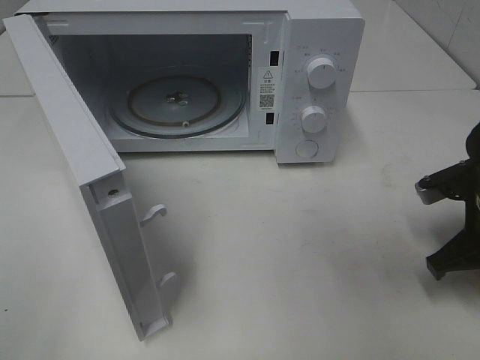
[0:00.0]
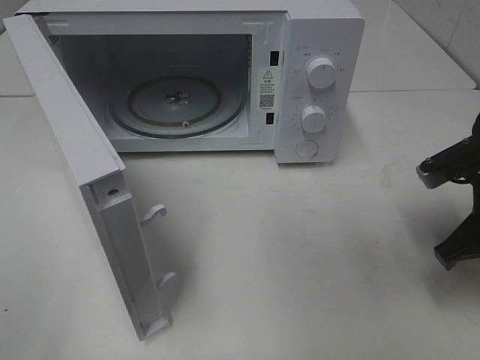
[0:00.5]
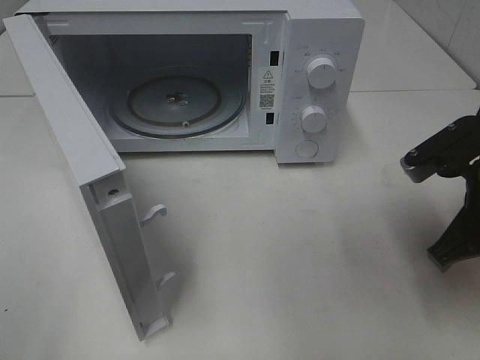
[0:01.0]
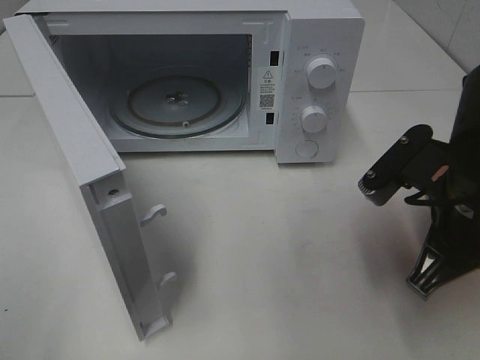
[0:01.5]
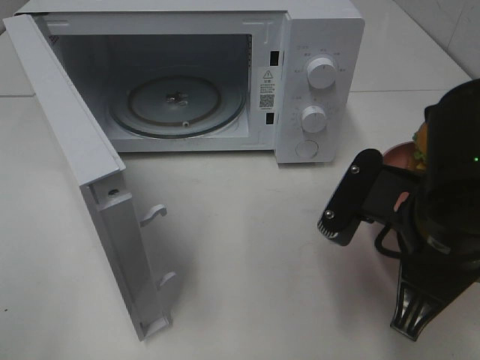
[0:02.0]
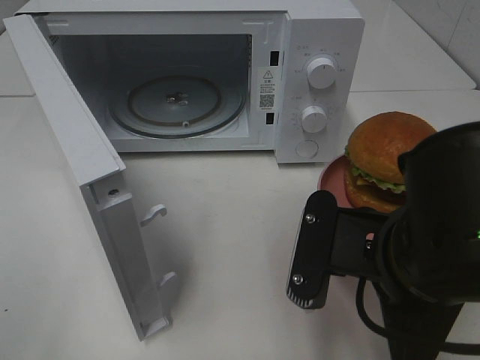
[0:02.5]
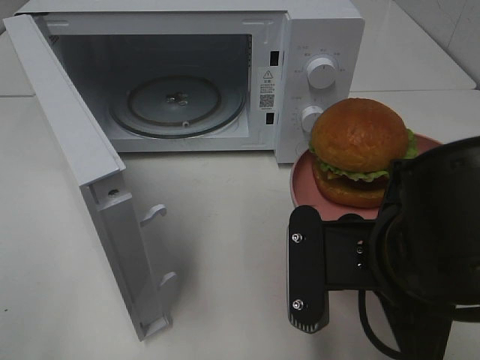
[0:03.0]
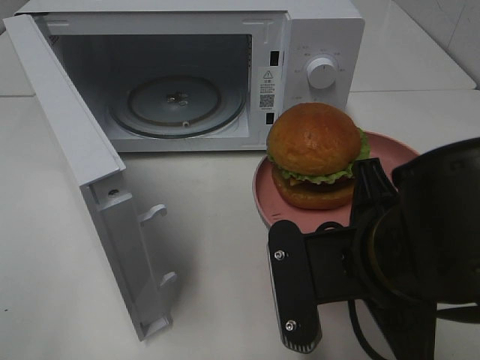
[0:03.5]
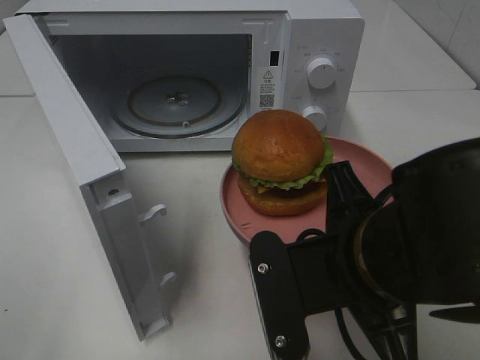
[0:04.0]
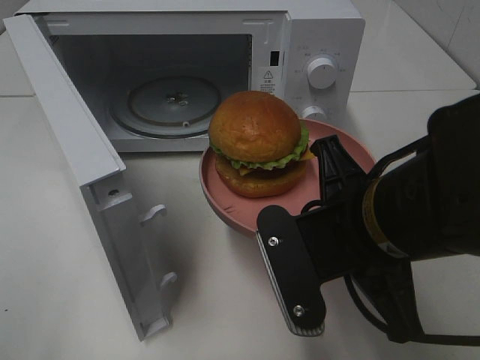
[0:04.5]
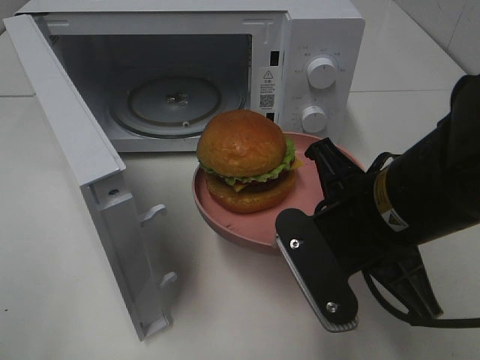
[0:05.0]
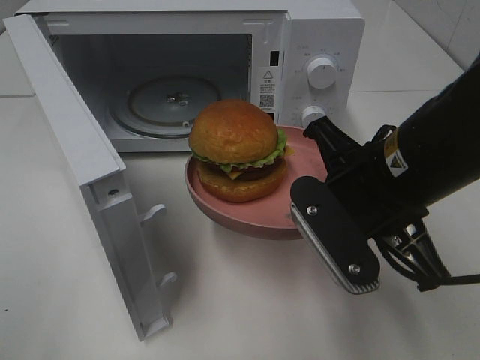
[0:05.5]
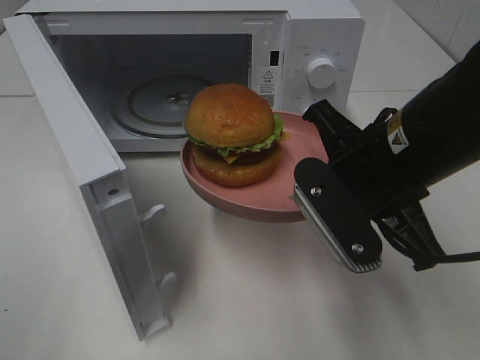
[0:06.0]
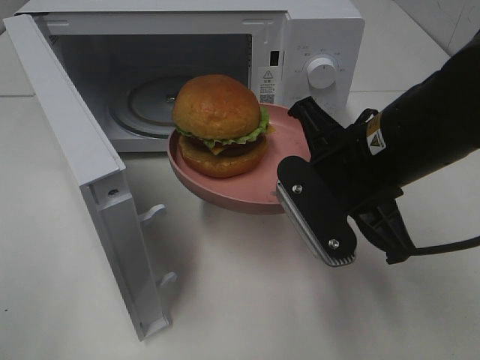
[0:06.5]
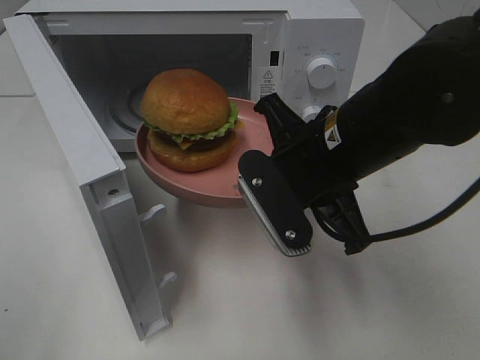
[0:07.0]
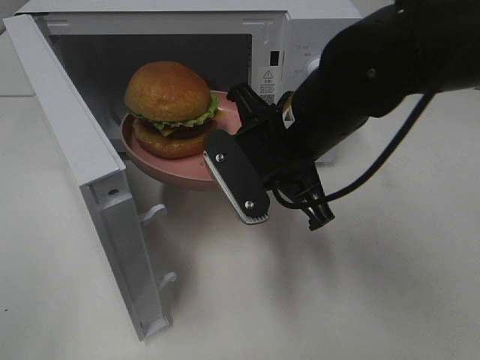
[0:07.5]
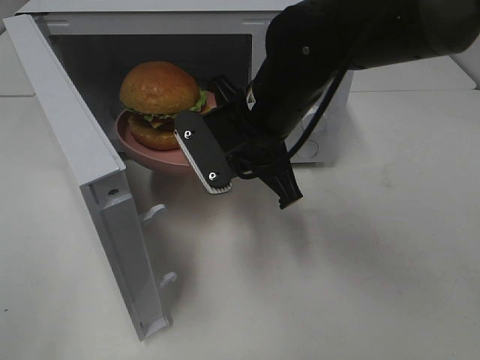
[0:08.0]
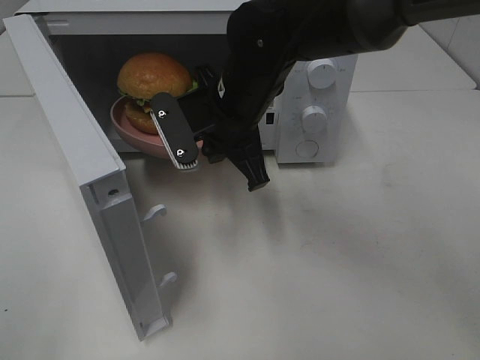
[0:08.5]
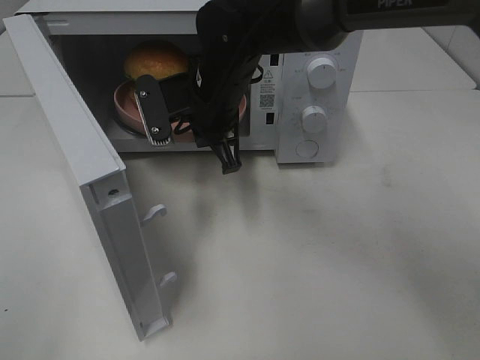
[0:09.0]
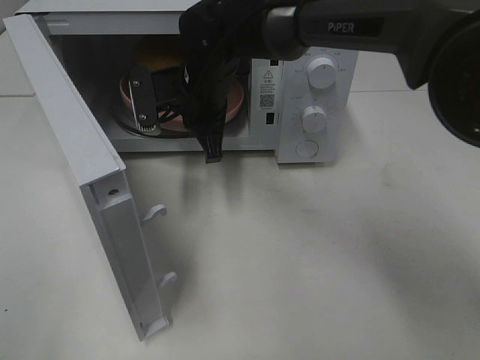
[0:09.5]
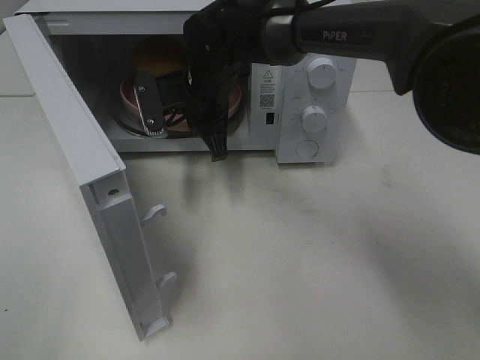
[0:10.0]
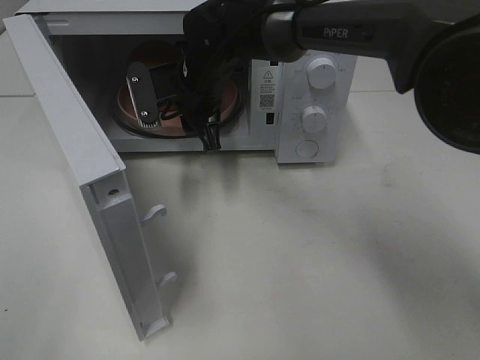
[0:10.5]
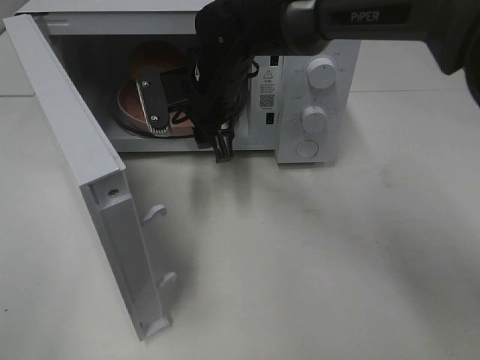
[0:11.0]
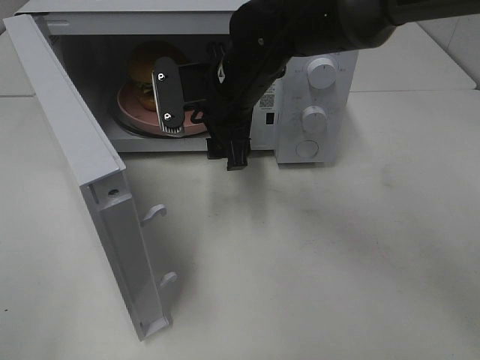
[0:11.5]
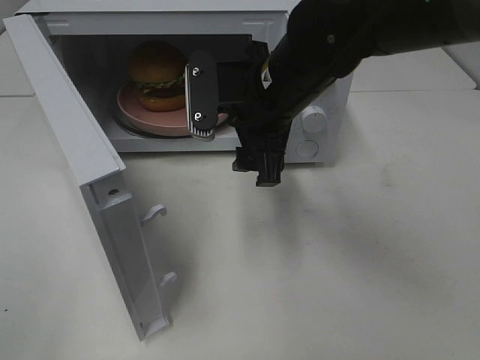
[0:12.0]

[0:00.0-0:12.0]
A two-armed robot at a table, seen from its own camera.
Task of the whole recording: Heat the burger.
Step, 0:00.0 to 0:11.0: Right hand: place the plate in the microwave.
0:00.0 to 0:02.0: The right gripper shifts roughly 15 cm to the left, backward and upward.
0:02.0 to 0:04.0: The right gripper shifts roughly 5 cm to the left.
0:04.0 to 0:06.0: The right gripper goes some 10 cm forward.
0:06.0 to 0:08.0: The right gripper travels to the left and forward by roughly 15 cm.
0:08.0 to 0:10.0: The right gripper shifts approximately 15 cm forward and to the left.
0:10.0 to 0:12.0: The right gripper travels backward, to the right and upward by roughly 15 cm, and opens its fingers.

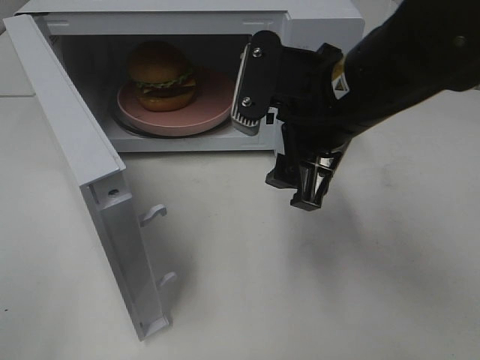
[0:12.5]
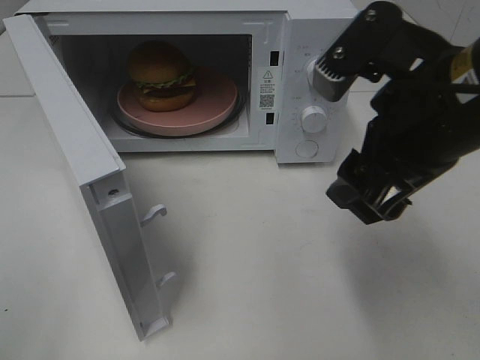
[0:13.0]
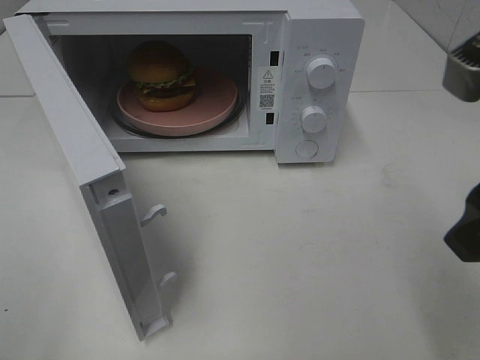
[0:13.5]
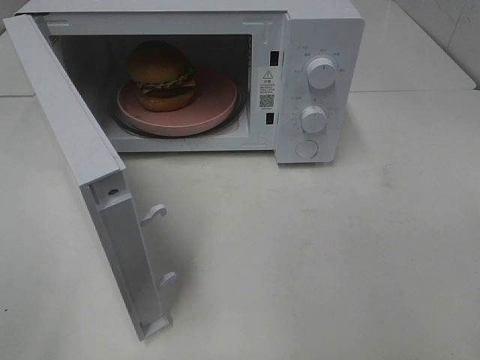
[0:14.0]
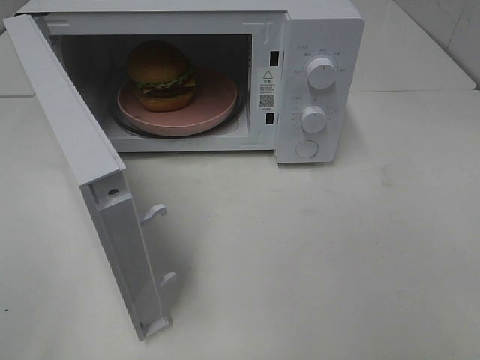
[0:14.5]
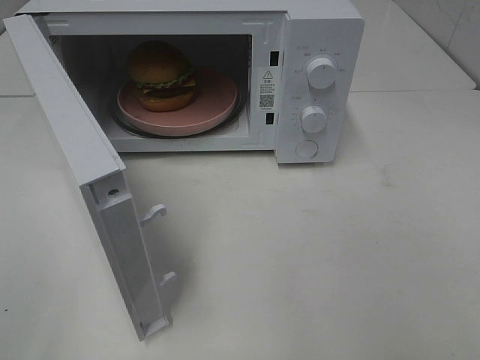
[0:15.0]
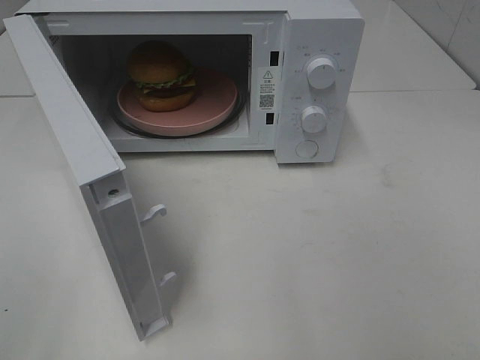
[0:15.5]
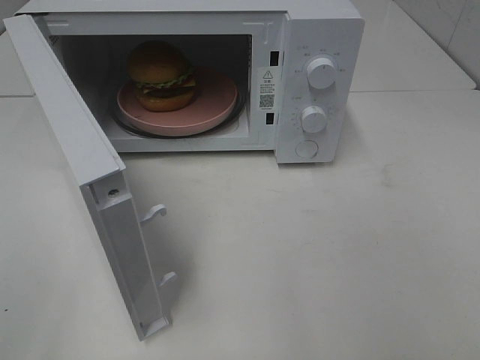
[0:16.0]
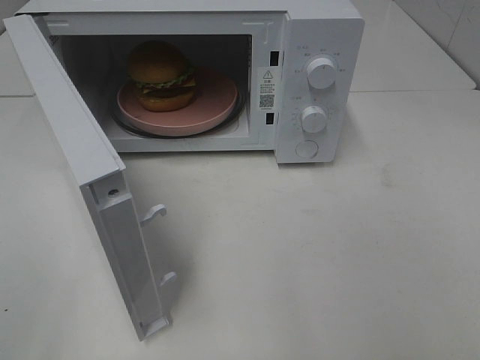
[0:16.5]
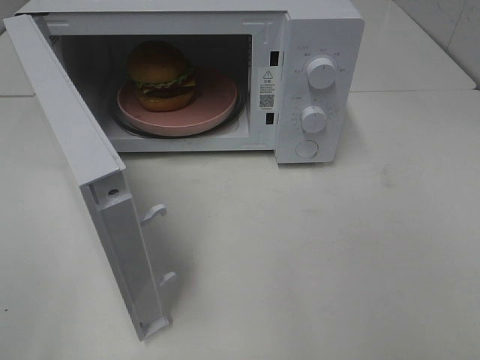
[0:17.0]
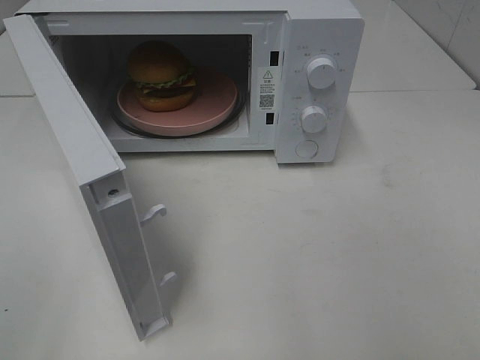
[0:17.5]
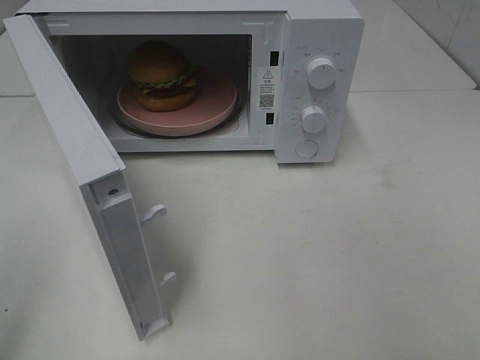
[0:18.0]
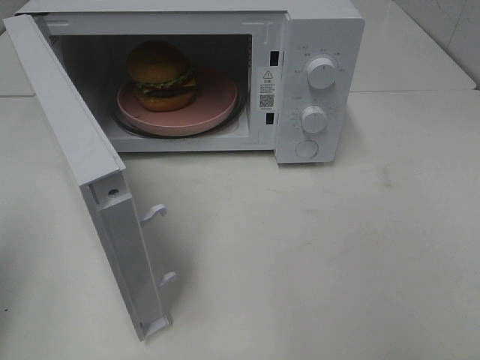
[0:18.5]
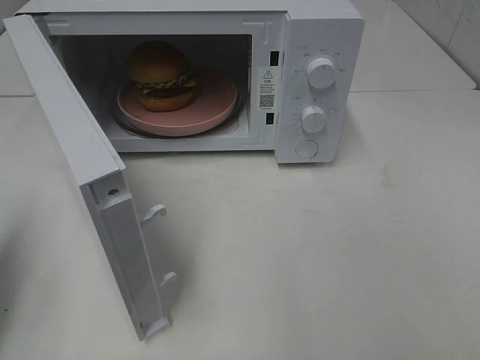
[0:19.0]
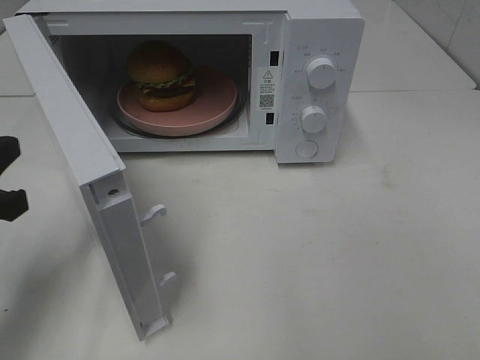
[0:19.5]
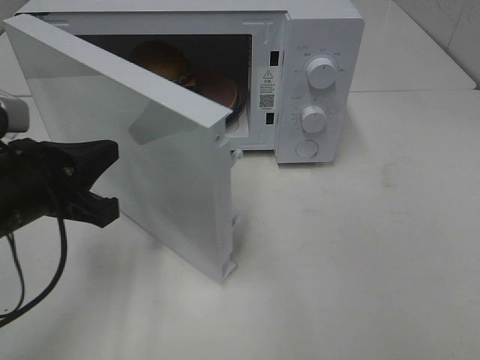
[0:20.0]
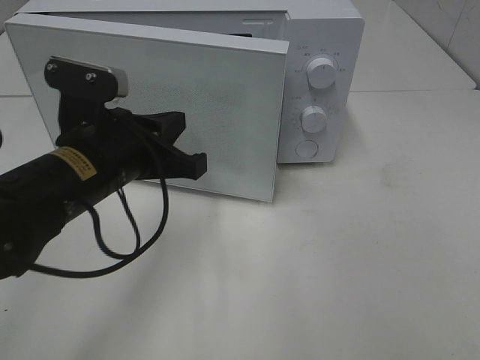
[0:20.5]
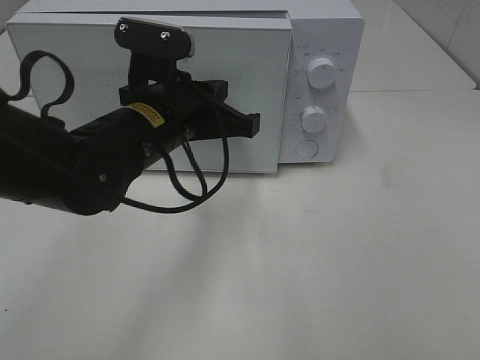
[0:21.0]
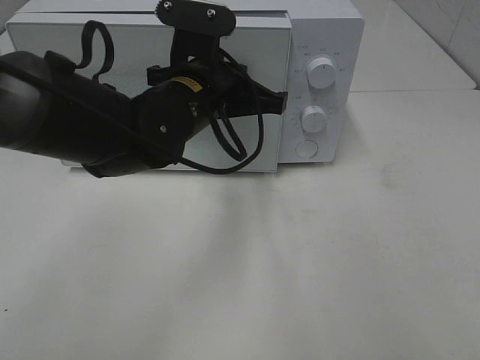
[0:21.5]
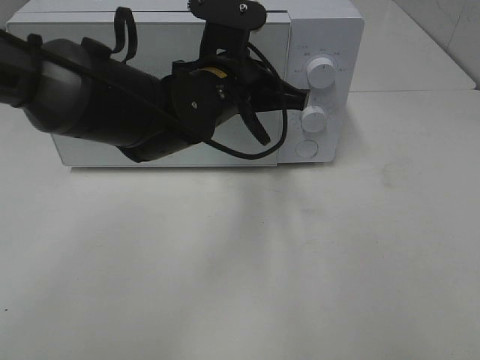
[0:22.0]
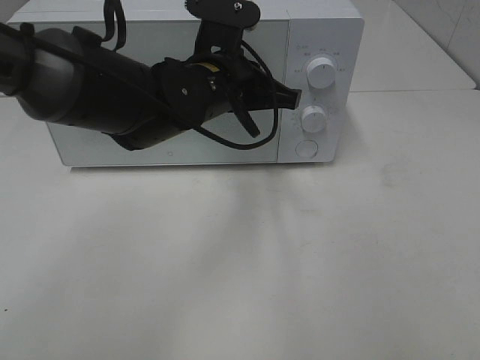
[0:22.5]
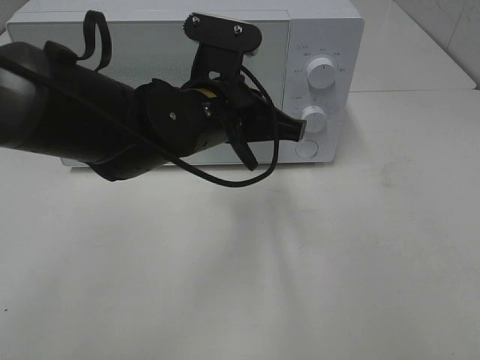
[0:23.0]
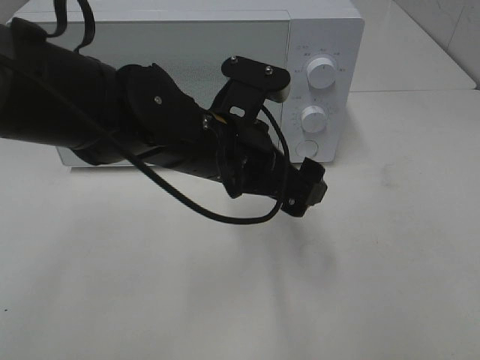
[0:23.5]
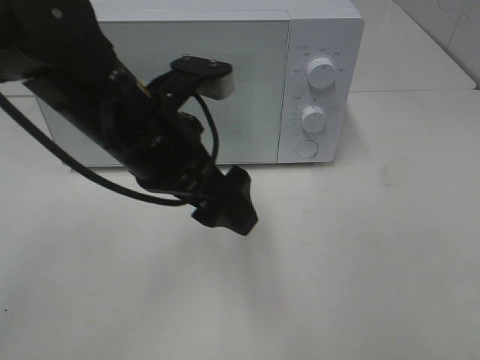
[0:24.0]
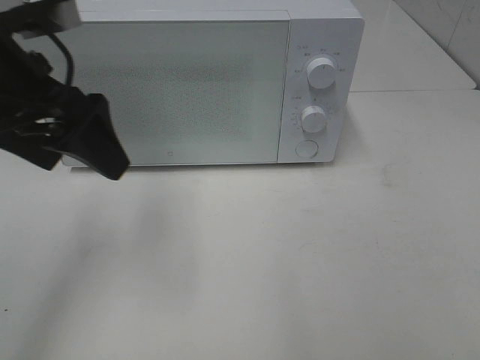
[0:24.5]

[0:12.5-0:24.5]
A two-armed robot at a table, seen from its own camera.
Task of the whole recording: Heat the burger.
Step, 0:12.5 to 0:23.0: Left hand: close the microwave door.
0:12.5 to 0:14.5: The right gripper is displaced backward and to the right by approximately 25 cm.
0:18.5 to 0:20.5: The left gripper heads to the right, forward and downward, covering roughly 25 cm.
0:20.5 to 0:22.5: The left gripper is displaced to the right and forward by some 15 cm.
0:22.5 to 0:24.5: The left gripper is displaced to the left, upward and backward by roughly 20 cm, and opens.

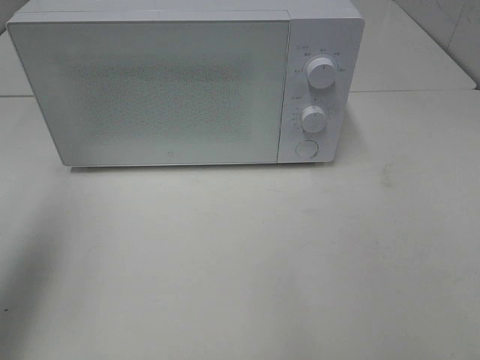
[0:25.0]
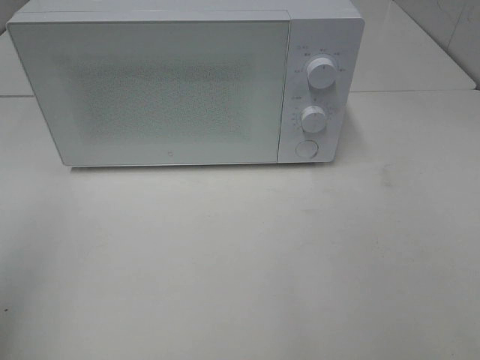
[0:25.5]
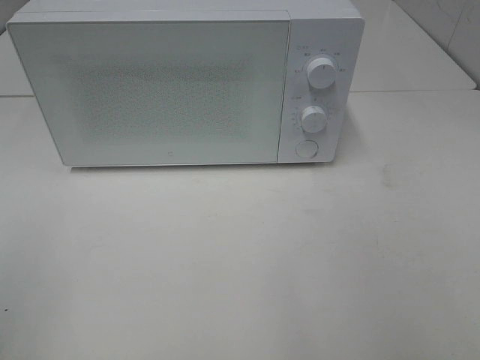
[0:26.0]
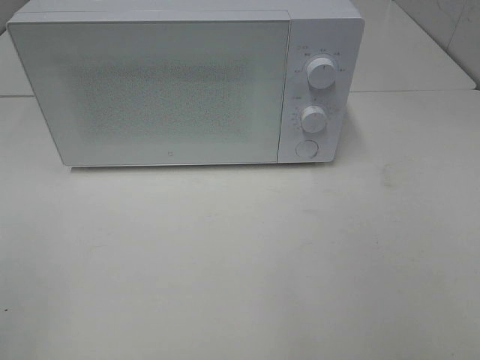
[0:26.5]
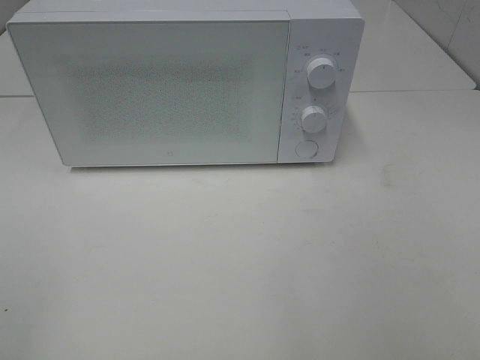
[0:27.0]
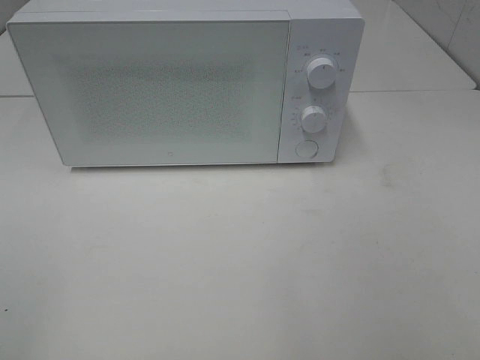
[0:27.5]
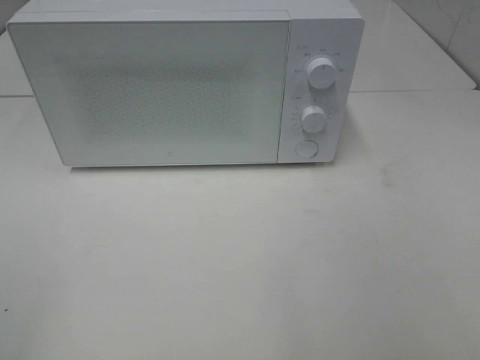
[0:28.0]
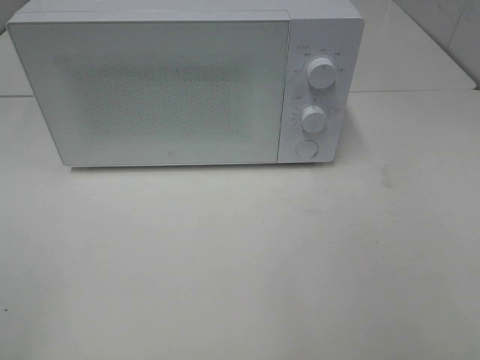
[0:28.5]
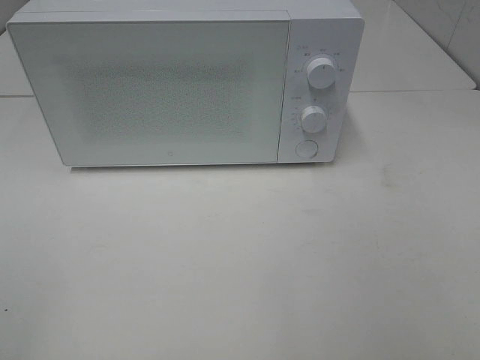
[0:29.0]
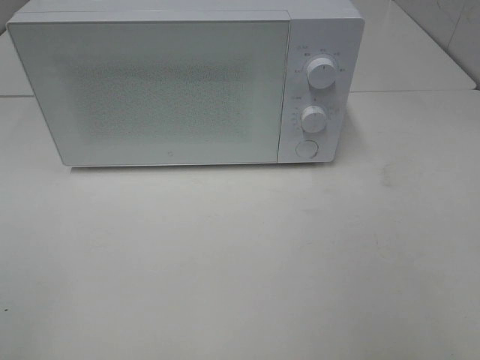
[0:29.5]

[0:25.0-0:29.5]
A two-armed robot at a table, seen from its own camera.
Task of the whole recording: Heat the burger.
0:25.0 to 0:27.0: The left gripper moves backward, approximately 20 cm.
